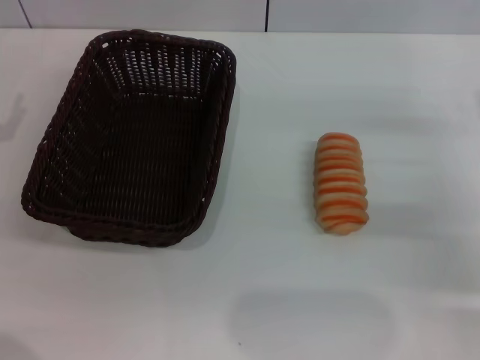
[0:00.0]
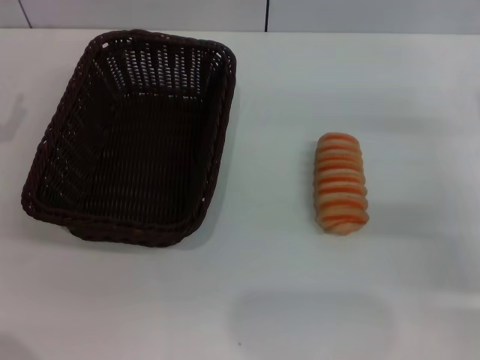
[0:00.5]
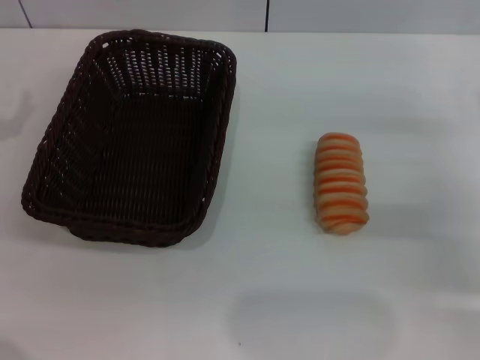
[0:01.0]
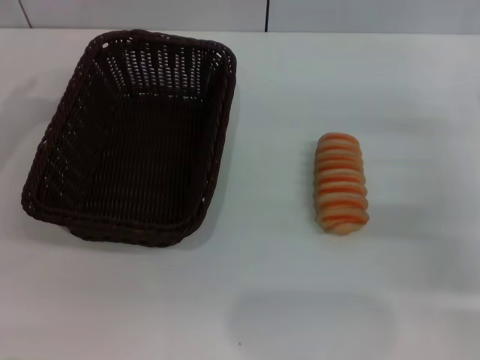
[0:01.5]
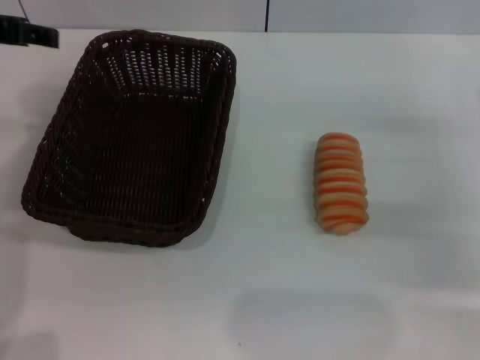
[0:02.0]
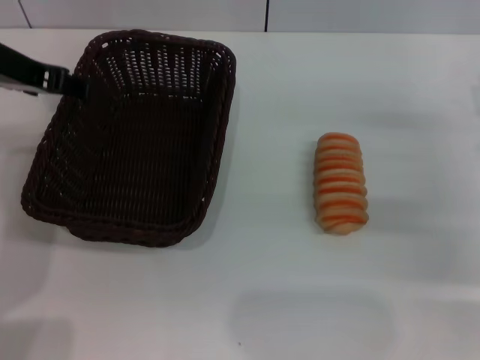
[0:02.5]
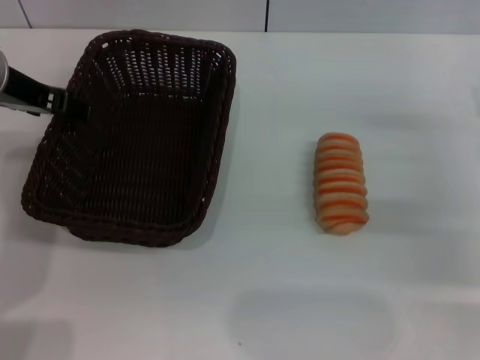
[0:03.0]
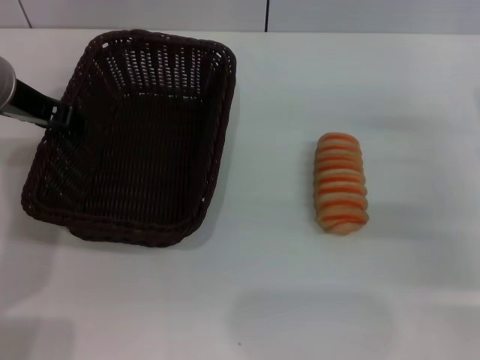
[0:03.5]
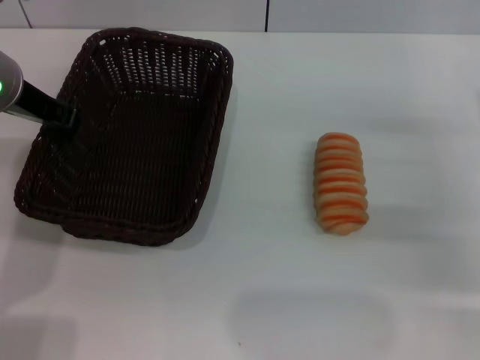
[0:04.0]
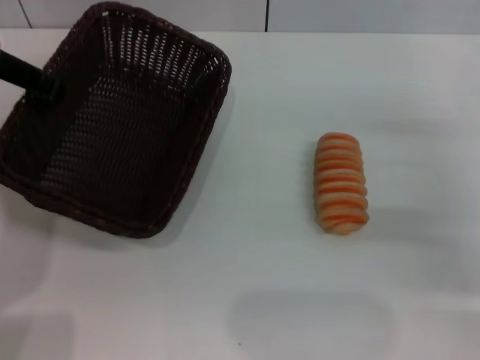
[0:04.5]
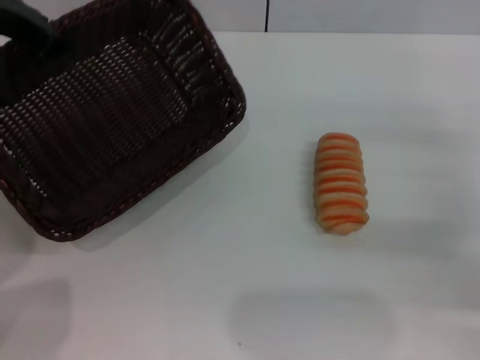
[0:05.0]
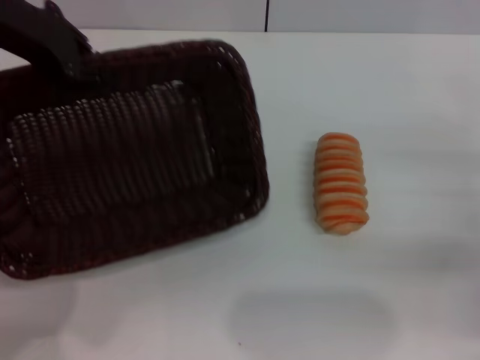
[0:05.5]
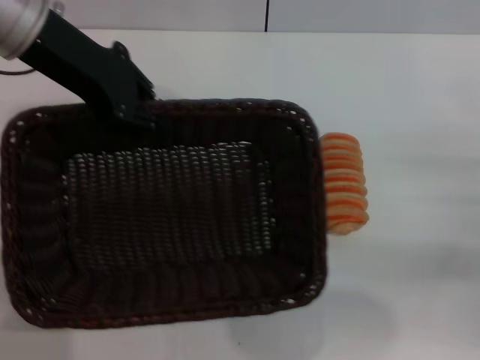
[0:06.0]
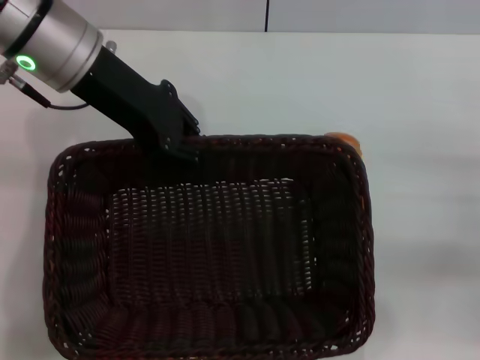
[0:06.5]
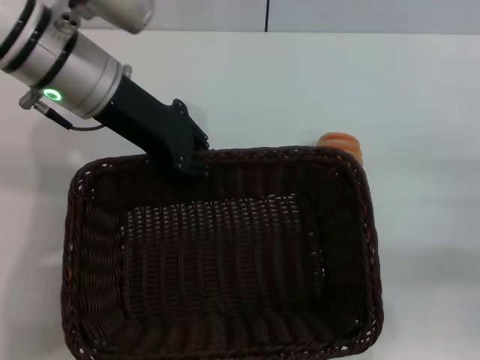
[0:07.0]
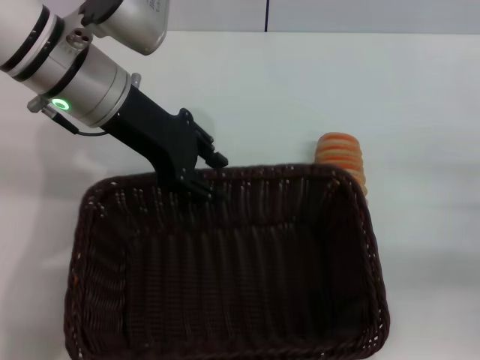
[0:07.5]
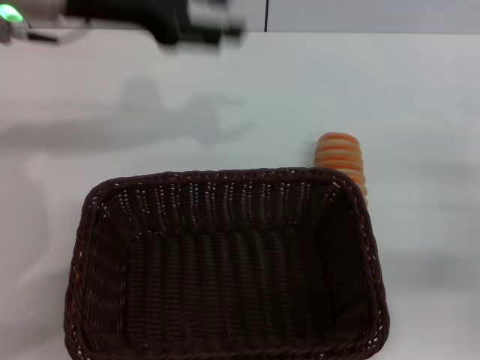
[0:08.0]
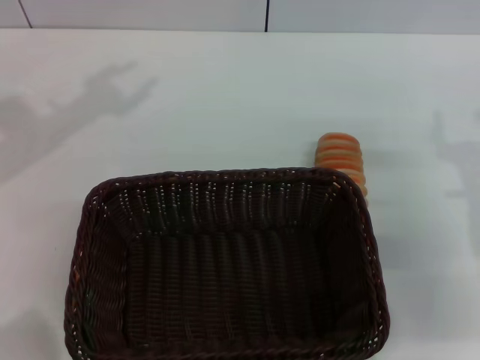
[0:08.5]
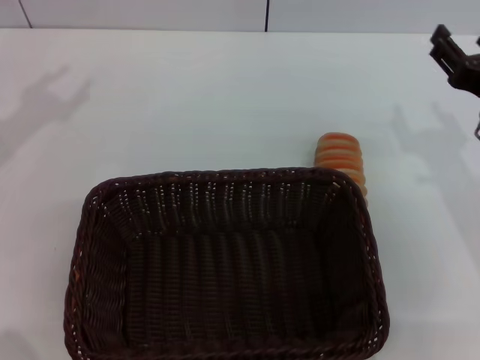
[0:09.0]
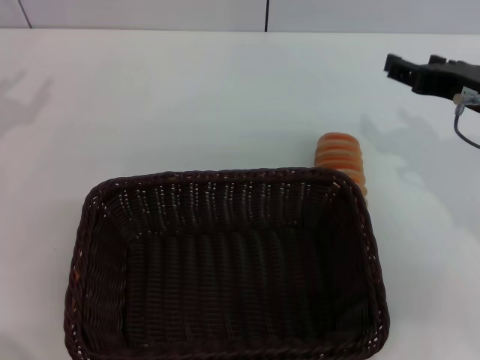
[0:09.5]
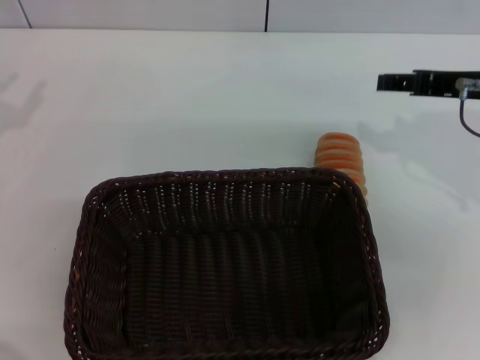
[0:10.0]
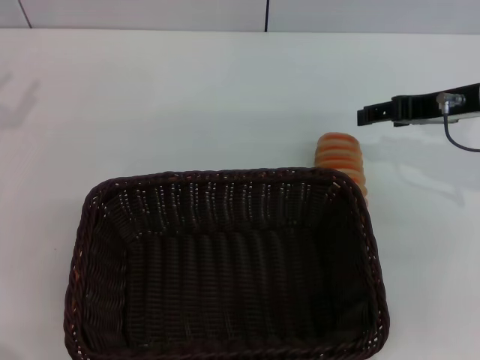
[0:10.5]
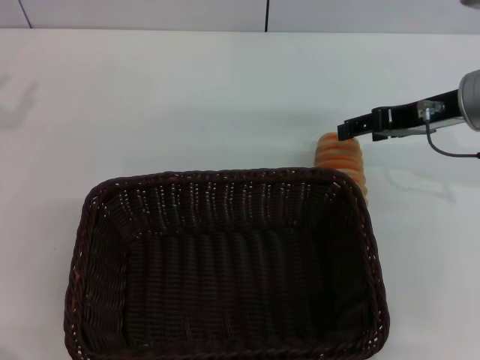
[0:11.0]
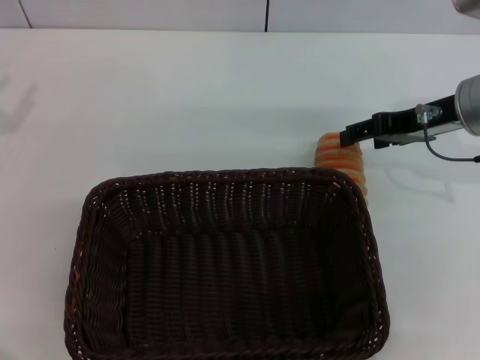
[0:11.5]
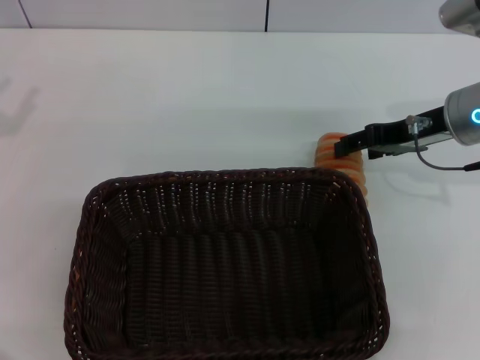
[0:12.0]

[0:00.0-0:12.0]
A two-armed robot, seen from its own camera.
Step, 0:00.0 to 0:04.5: Pick up the dark basket with the left gripper.
Step, 0:05.0 to 0:07.5: Place the dark basket in the center of view with the left gripper.
0:00.0 to 0:02.0: The left gripper goes about 20 cm upward, to the right and forward.
0:02.0 to 0:04.0: The left gripper goes approximately 5 cm downward, and closes its fingers.
0:04.0 to 0:06.0: The left gripper shifts about 5 cm upward; the right gripper moves backward, some 5 cm.
0:06.0 to 0:08.0: The left gripper opens up.
0:08.0 to 0:10.0: The right gripper shifts roughly 15 cm upward, to the left and forward. Meanwhile the left gripper travels to the left and backward by some 20 cm.
0:10.0 to 0:12.0: The right gripper shifts roughly 5 cm downward.

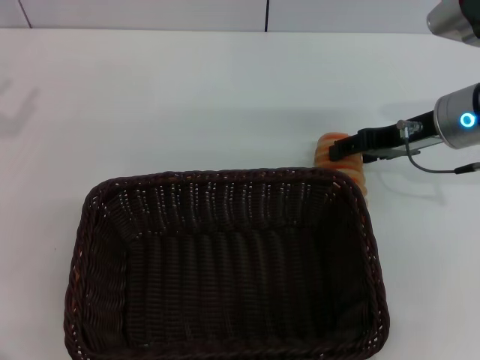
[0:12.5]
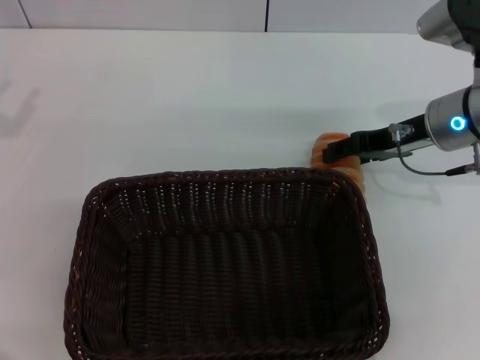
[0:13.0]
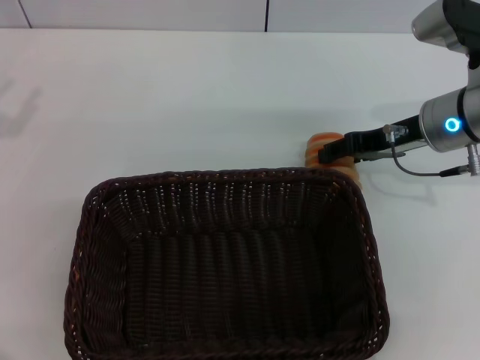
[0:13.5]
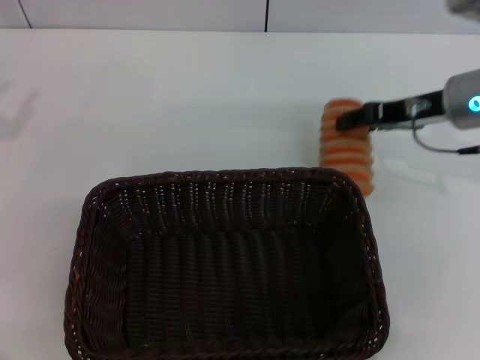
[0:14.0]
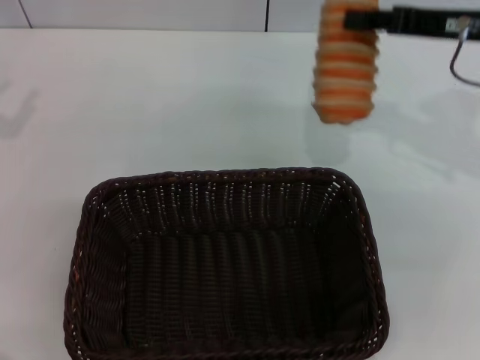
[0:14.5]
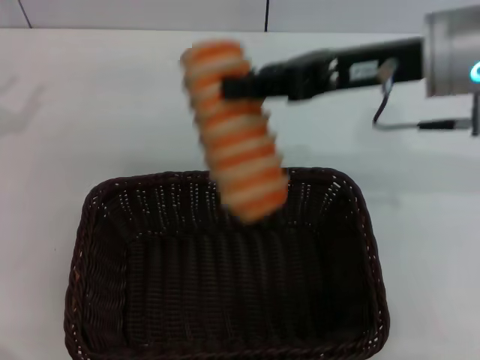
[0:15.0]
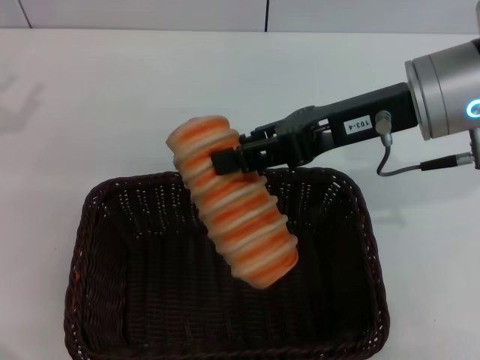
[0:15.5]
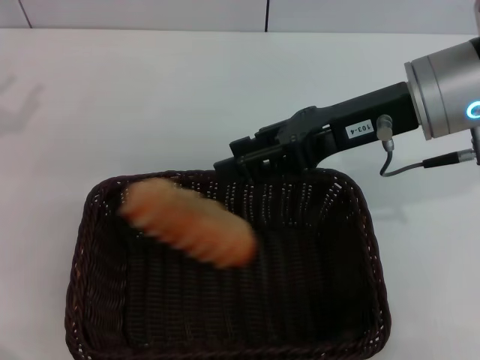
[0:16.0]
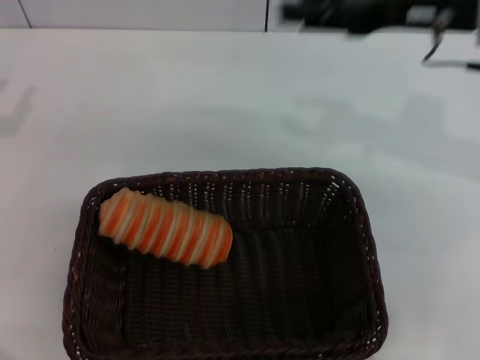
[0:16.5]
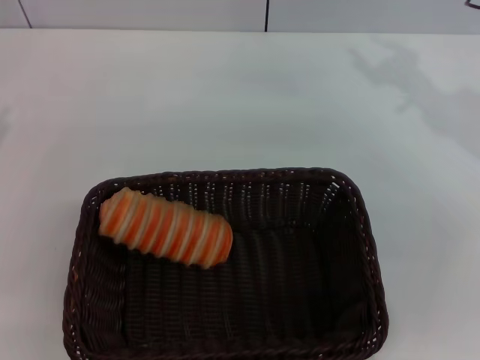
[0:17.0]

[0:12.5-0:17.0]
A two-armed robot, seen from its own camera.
Step, 0:14.5 to 0:16.0: Place the long bread into the dark basket with the right gripper.
0:12.5 to 0:14.5: The right gripper goes about 10 cm upward, and closes up.
0:14.5 to 0:17.0: The right gripper reaches some 10 cm to the left, then returns, and opens; the left gripper travels downward by about 5 cm.
